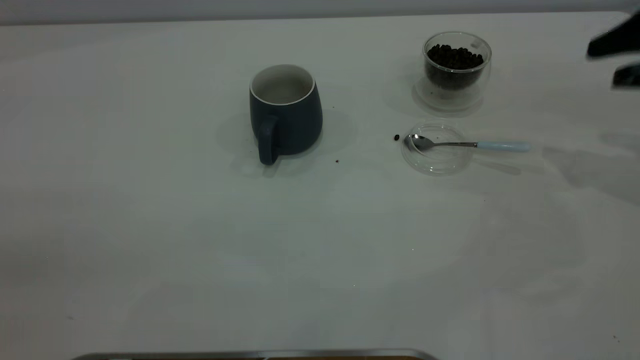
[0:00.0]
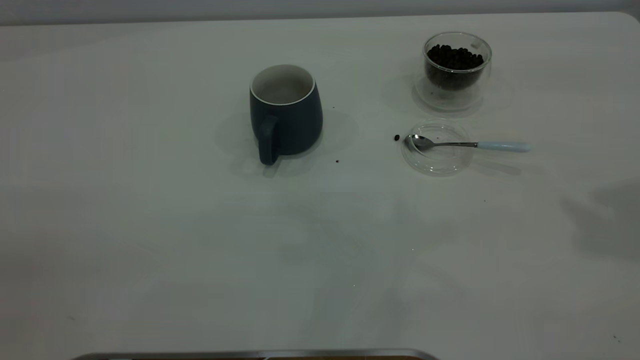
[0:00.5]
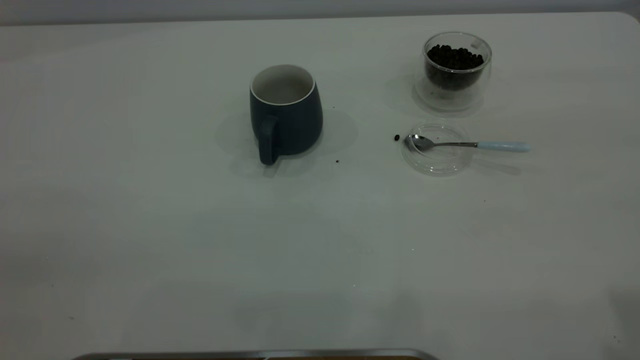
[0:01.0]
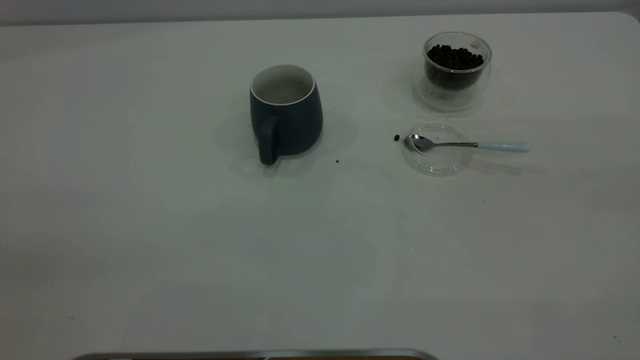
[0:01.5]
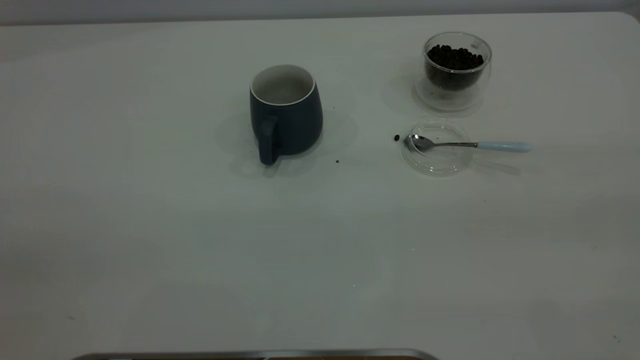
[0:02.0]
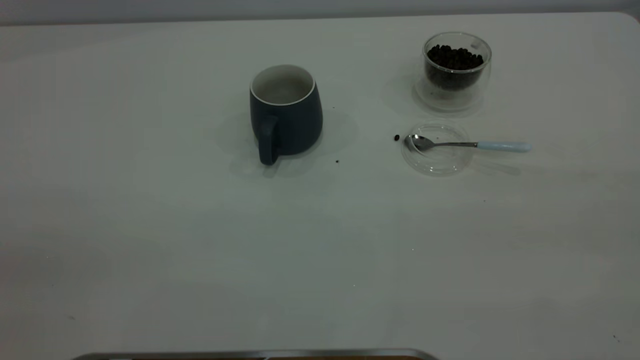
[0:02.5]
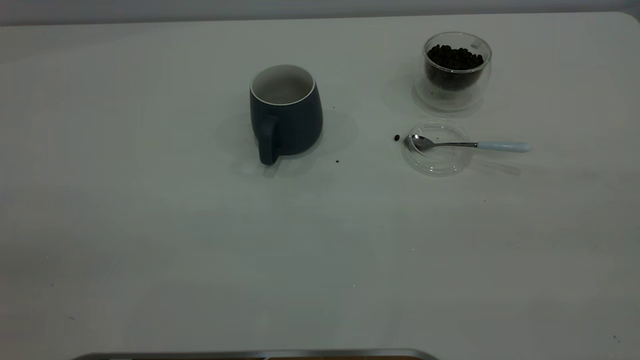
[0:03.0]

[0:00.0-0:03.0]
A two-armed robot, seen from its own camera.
Task of the whole recording: the left gripper place the grey cup in the center of the table, the right gripper take the blue spoon from the cup lid and scoop out the coffee beans from the coffee cup and put them into the grey cup, the right gripper put the spoon back into the cup lid.
0:00.0 to 0:01.5: The right gripper shifts approximately 35 cm backward and upward.
